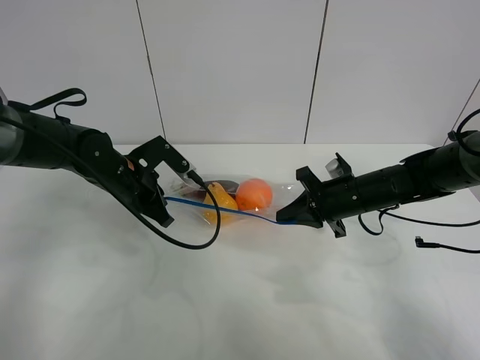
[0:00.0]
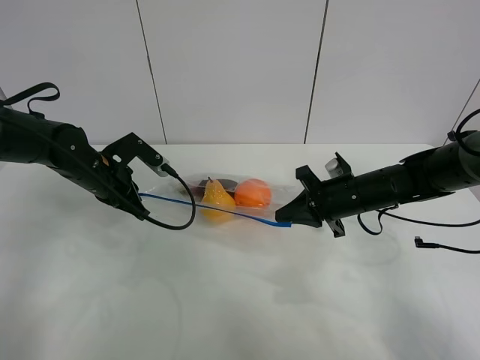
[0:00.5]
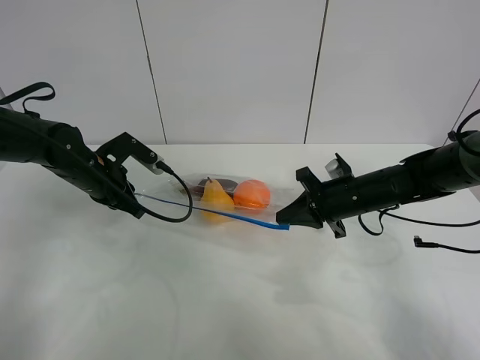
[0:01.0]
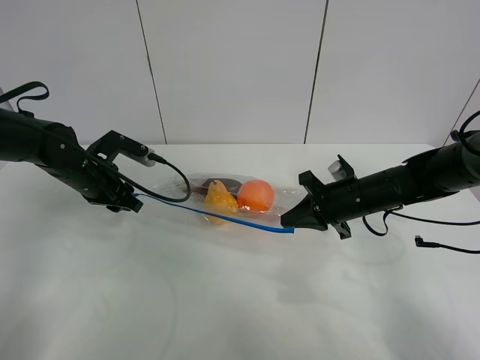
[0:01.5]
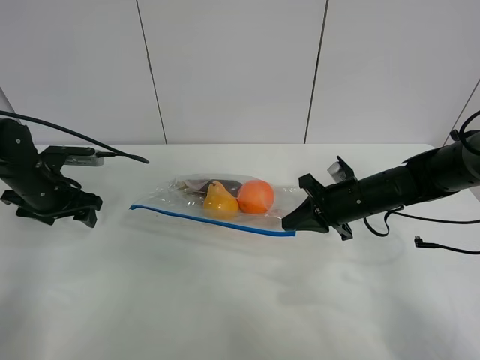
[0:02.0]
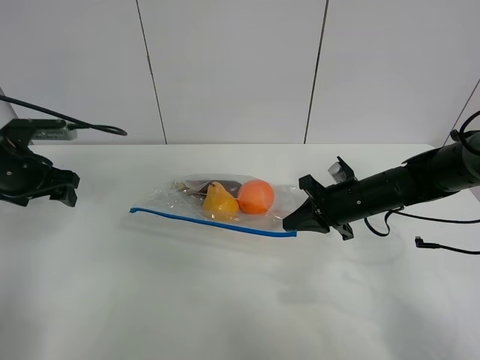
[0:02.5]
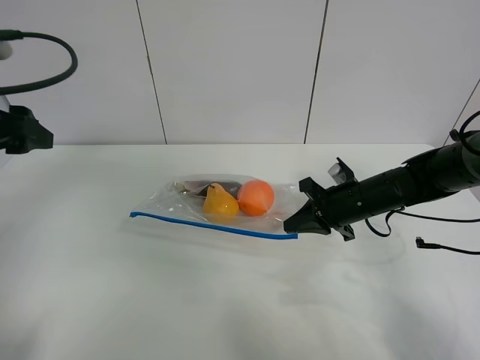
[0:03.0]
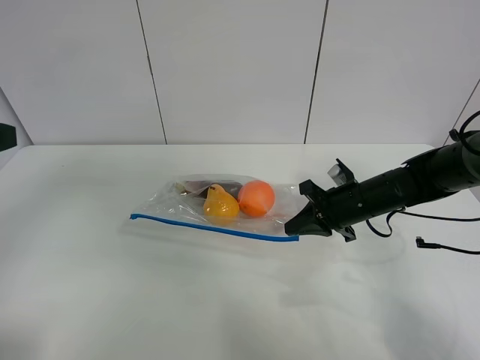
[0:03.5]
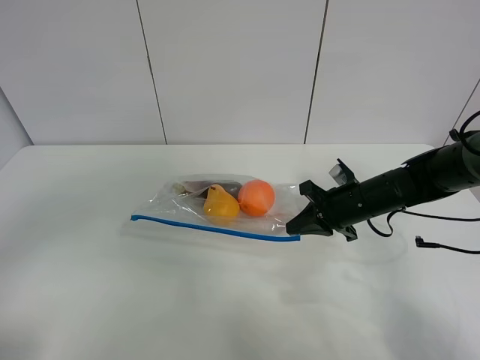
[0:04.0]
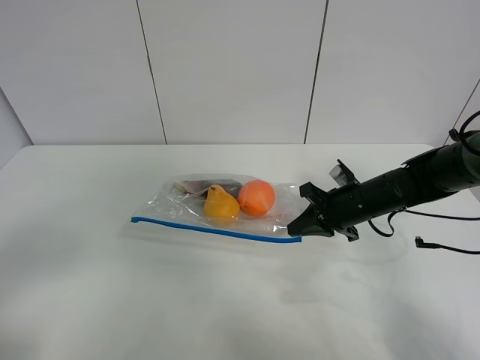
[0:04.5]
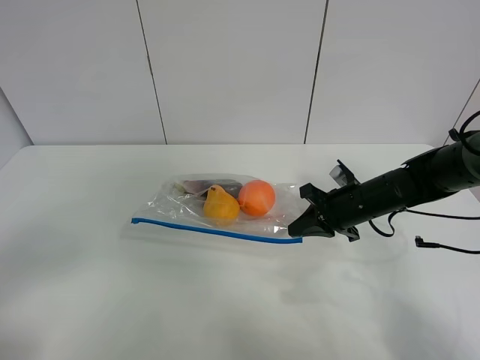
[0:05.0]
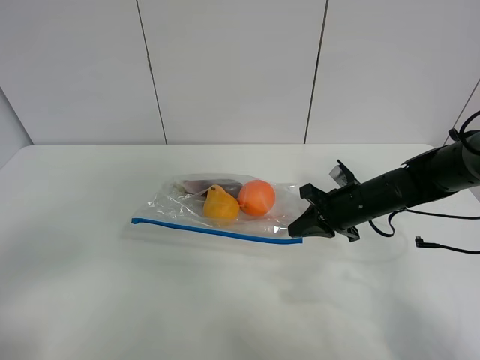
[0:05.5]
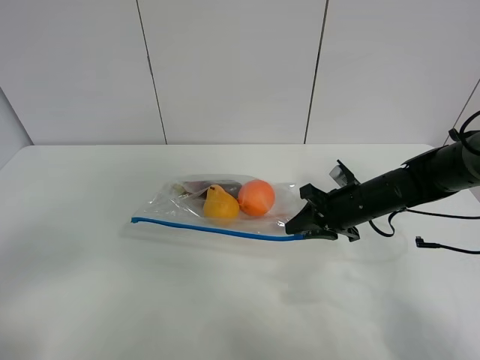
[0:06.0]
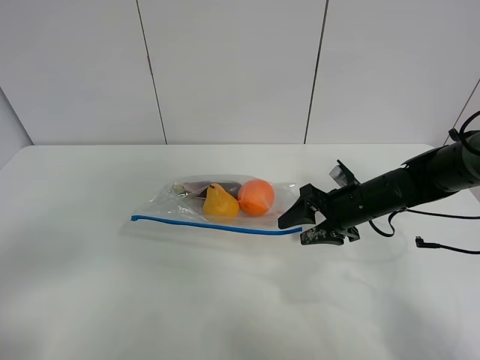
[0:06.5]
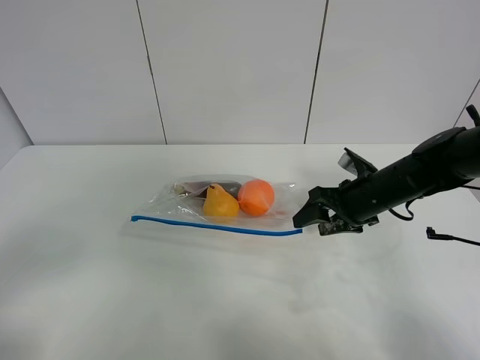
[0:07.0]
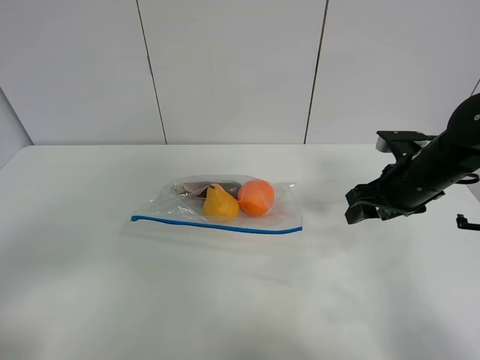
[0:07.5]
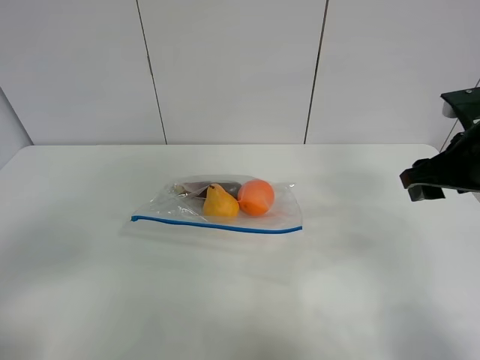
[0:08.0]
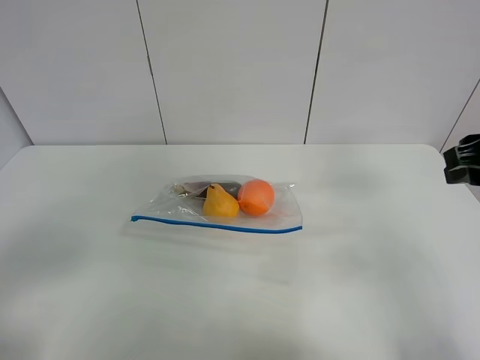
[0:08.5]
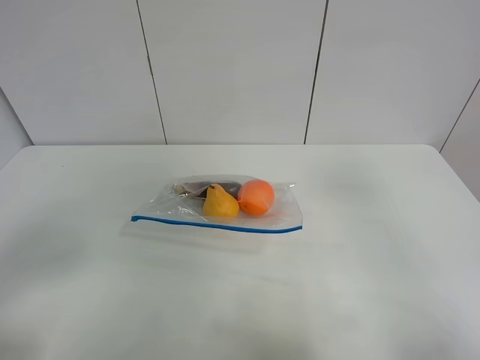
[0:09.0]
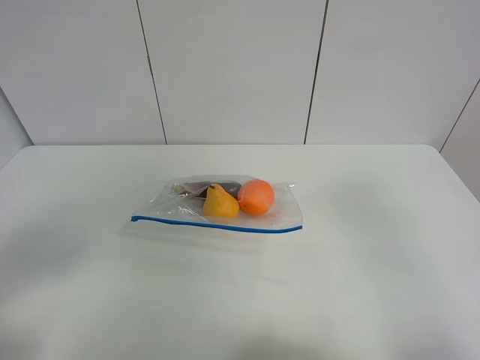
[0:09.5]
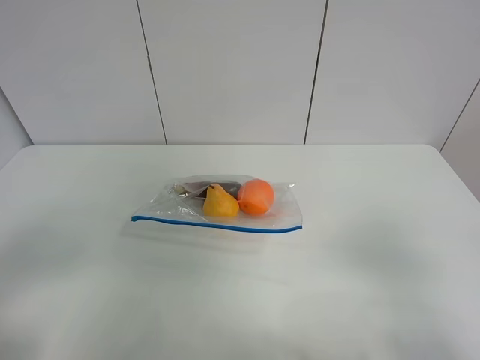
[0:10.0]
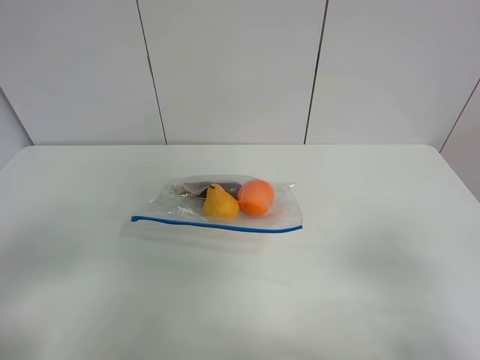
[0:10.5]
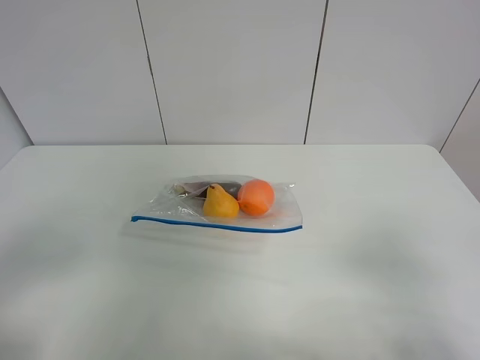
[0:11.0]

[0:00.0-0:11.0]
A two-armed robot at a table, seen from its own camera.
0:00.0 to 0:02.0: The left gripper moves to the left, some 15 cm, and opens.
0:02.0 to 0:03.5: The left gripper heads upward and backward, covering roughly 30 cm.
0:03.5 to 0:05.5: The left gripper is displaced backward and downward by about 15 cm.
0:05.5 to 0:07.5: The right gripper shifts approximately 10 cm upward and to the right, and opens up.
0:07.5 to 0:09.0: The right gripper shifts roughly 30 cm backward and upward.
0:09.0 to 0:11.0: The right gripper shifts approximately 15 cm downward and backward.
